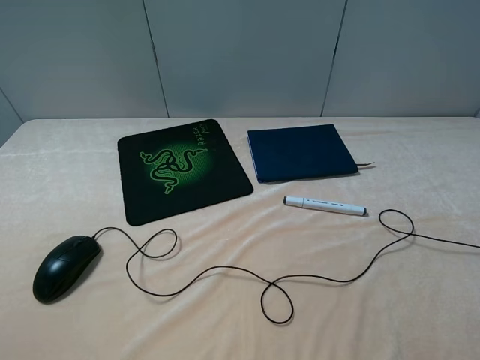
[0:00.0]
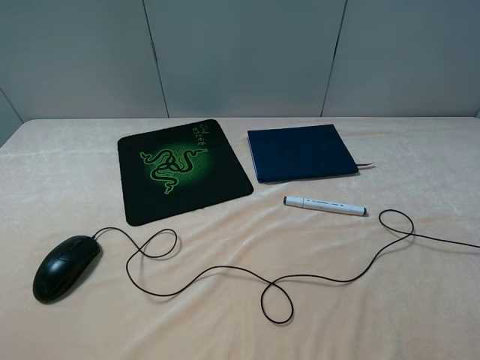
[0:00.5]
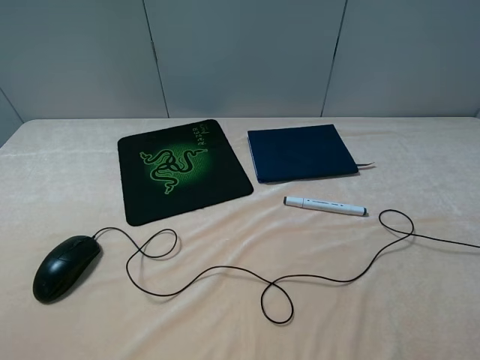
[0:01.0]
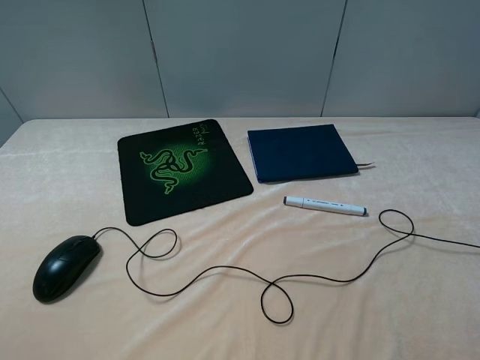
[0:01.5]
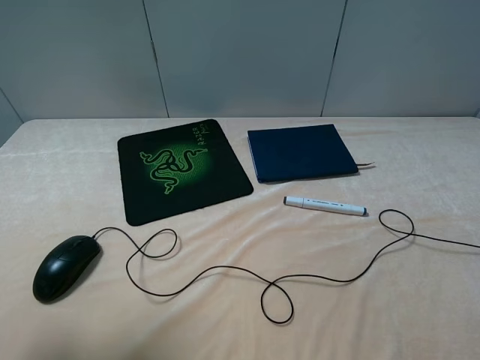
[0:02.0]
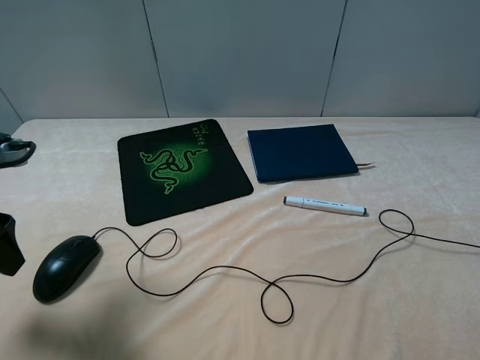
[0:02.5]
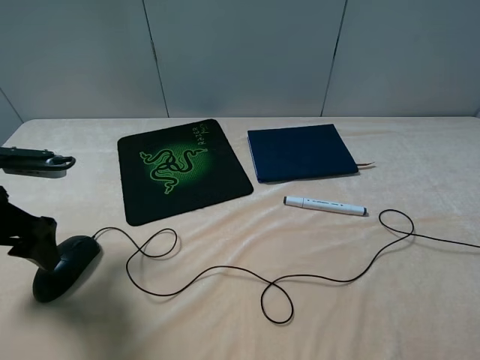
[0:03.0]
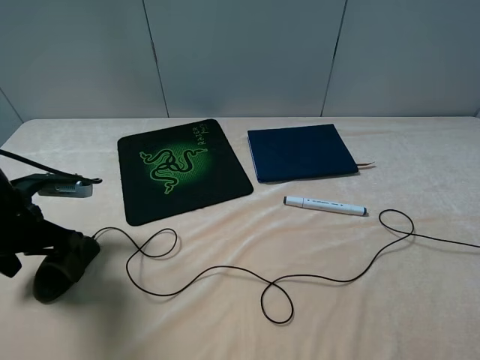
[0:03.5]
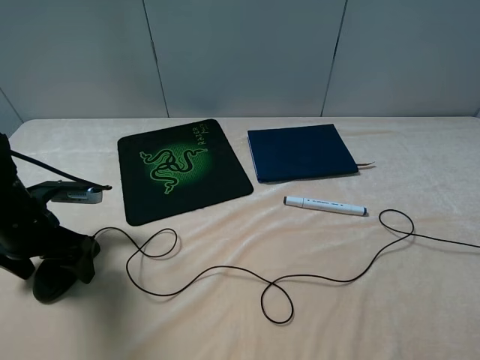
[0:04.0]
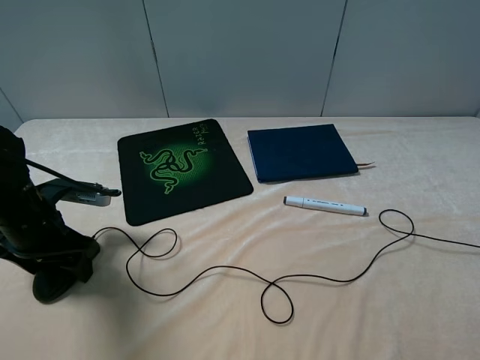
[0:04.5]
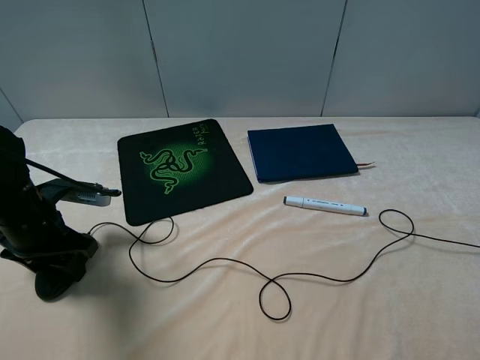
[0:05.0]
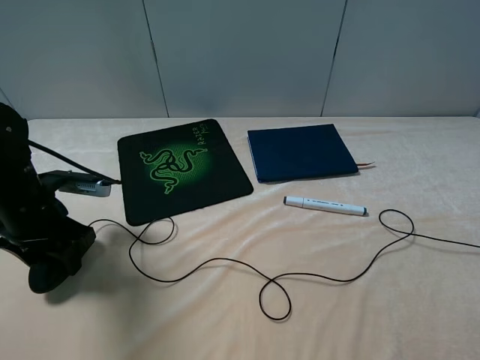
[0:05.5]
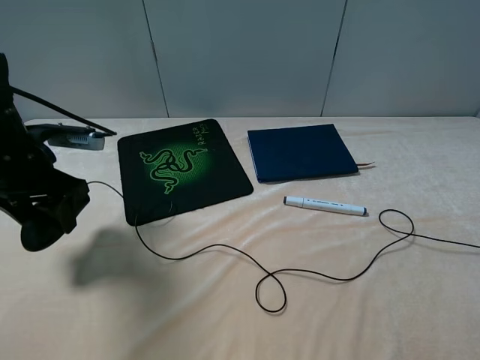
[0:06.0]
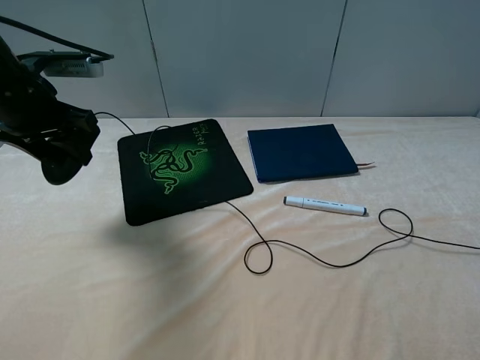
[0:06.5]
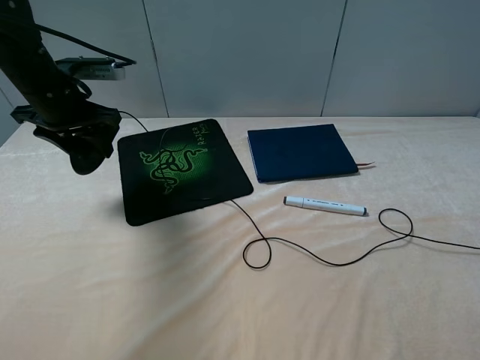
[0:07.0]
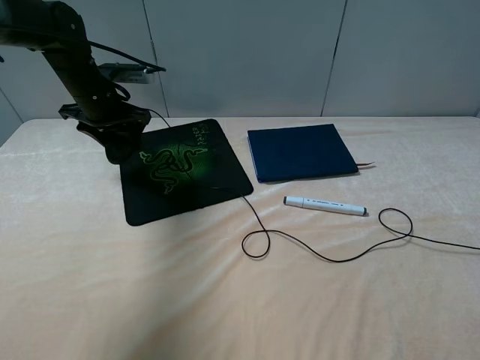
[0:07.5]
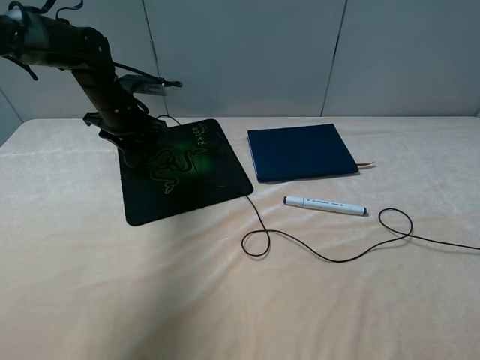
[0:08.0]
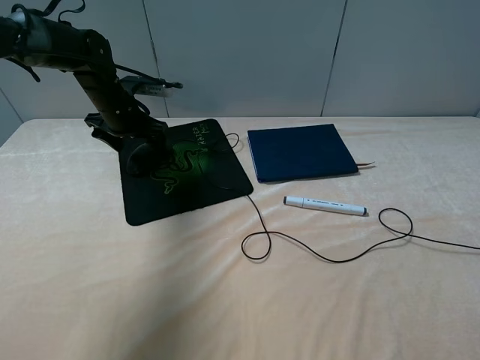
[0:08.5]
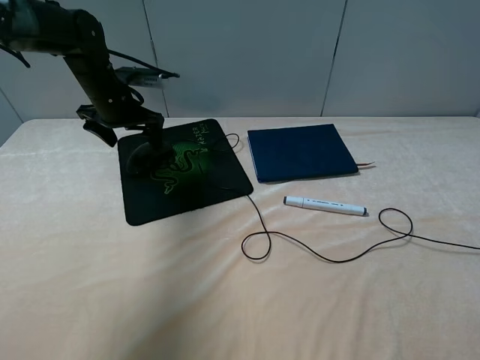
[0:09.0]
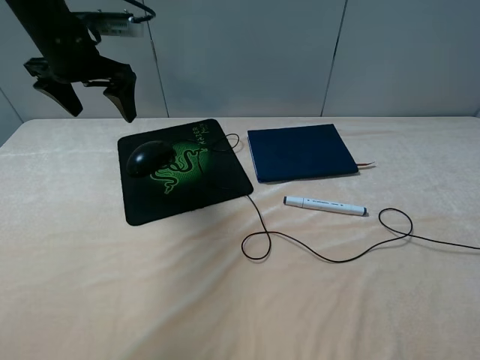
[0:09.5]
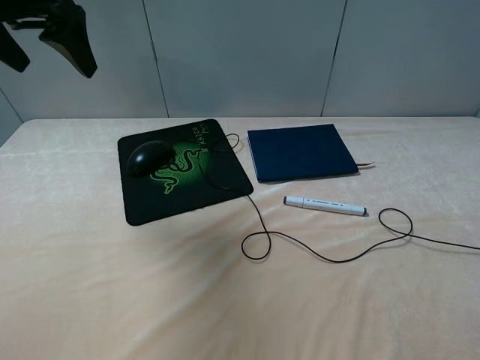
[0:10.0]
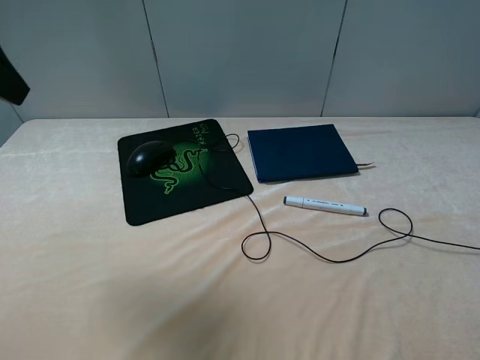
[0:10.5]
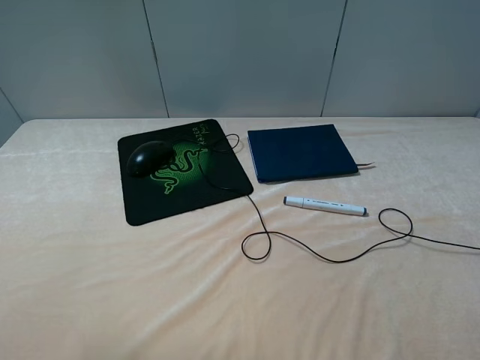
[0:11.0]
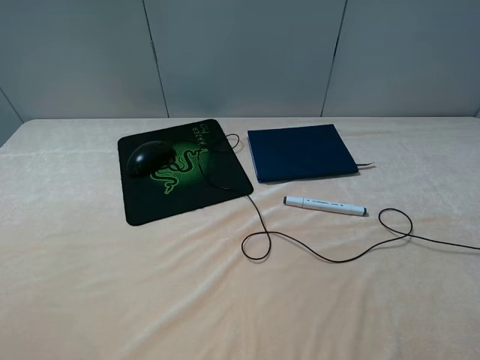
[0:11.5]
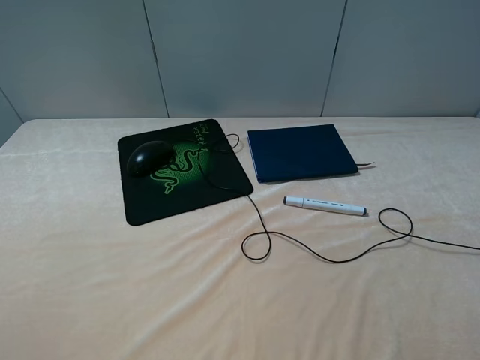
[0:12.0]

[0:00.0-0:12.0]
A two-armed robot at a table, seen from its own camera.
Step, 0:00.0 to 0:04.5: Grasp the mouse with the left gripper.
Step, 0:05.0 to 0:08.5: Place the mouse on the mouse pad with the left gripper.
0:00.0 to 0:02.0: The left gripper shifts roughly 15 cm forward.
0:02.0 to 0:04.0: The left gripper travels downward and forward by about 25 cm.
0:04.0 to 0:06.0: The left gripper travels upward by approximately 10 cm, and closes up.
0:06.0 to 0:08.0: The left gripper moves forward, approximately 20 cm.
0:08.0 to 0:10.0: The left gripper heads upward and backward, covering approximately 25 cm, and opens up.
0:10.0 to 0:12.0: The left gripper is displaced backward by approximately 30 cm.

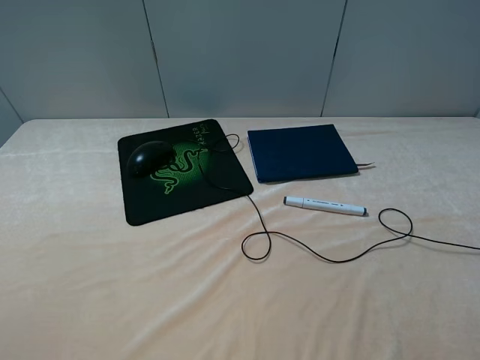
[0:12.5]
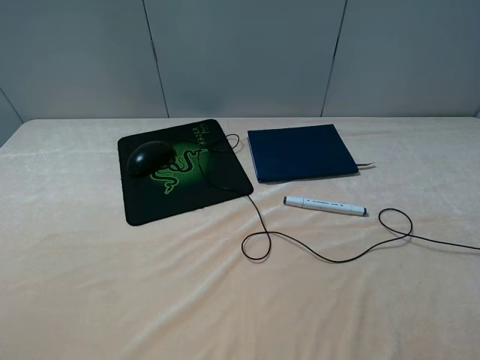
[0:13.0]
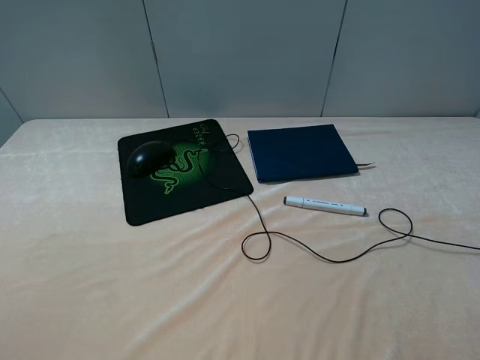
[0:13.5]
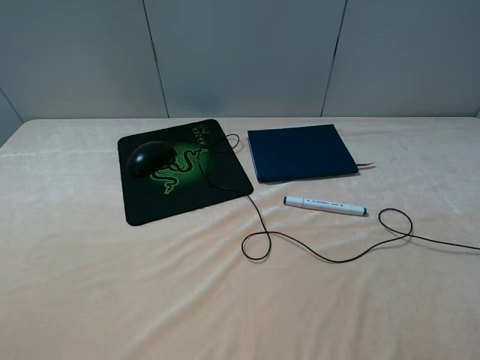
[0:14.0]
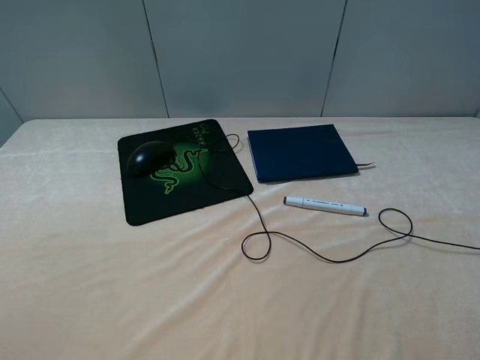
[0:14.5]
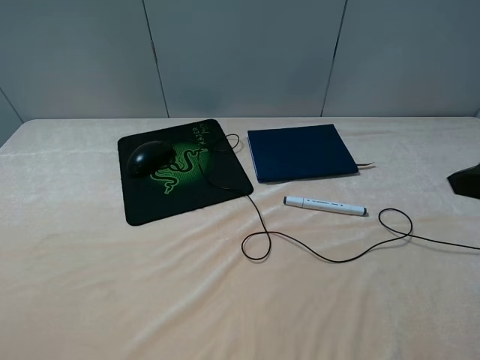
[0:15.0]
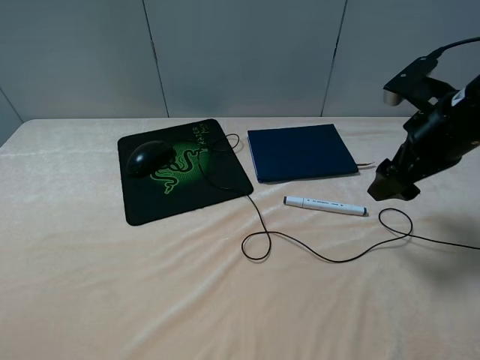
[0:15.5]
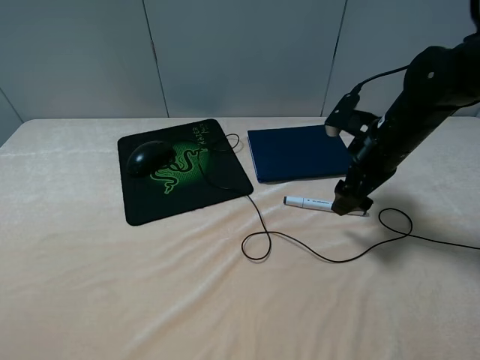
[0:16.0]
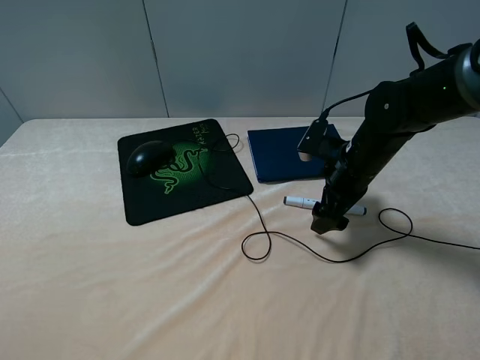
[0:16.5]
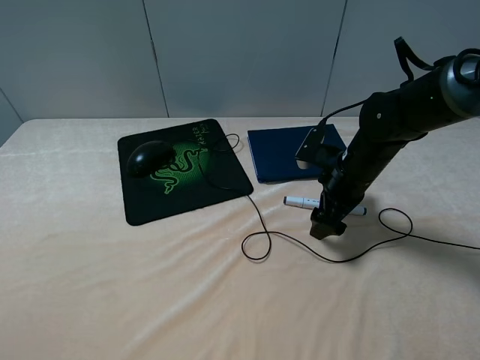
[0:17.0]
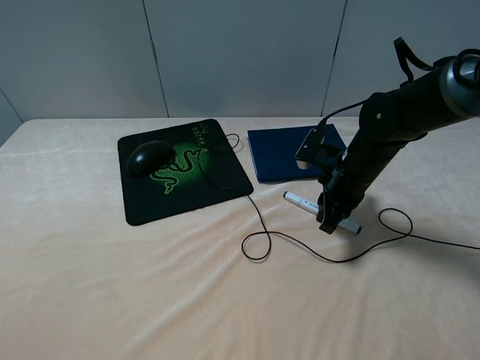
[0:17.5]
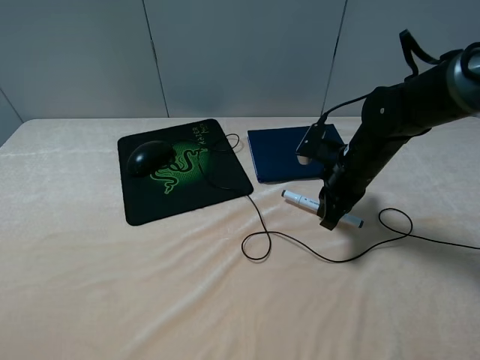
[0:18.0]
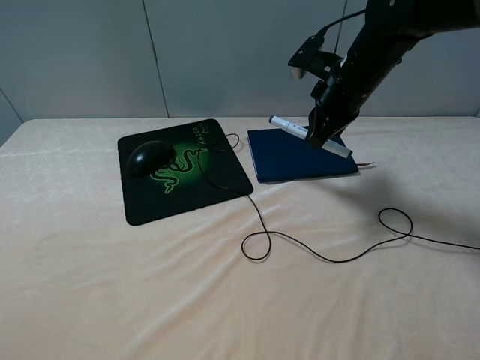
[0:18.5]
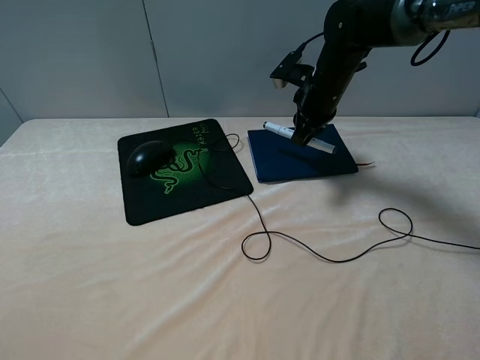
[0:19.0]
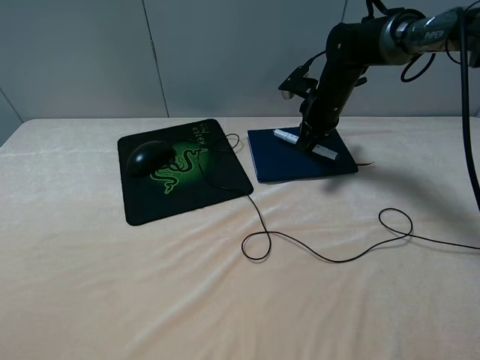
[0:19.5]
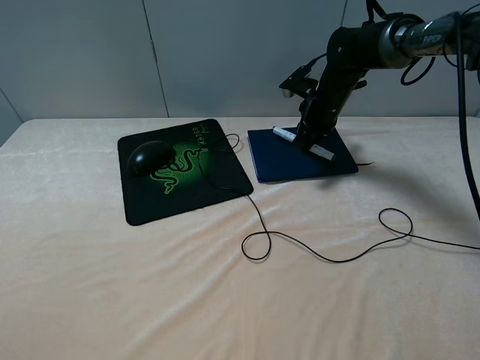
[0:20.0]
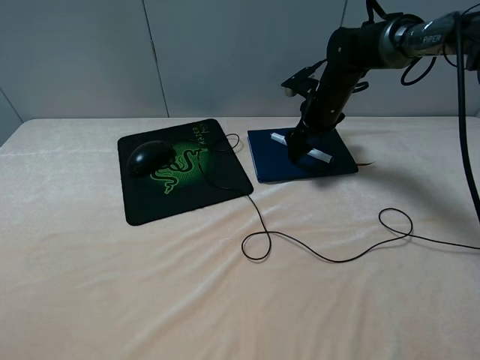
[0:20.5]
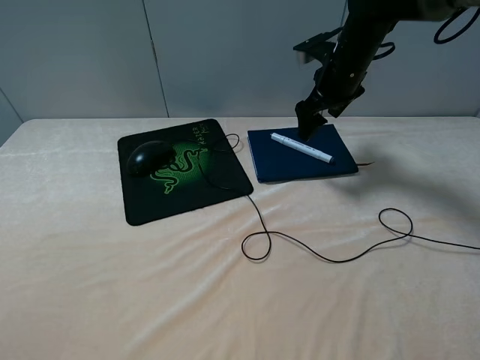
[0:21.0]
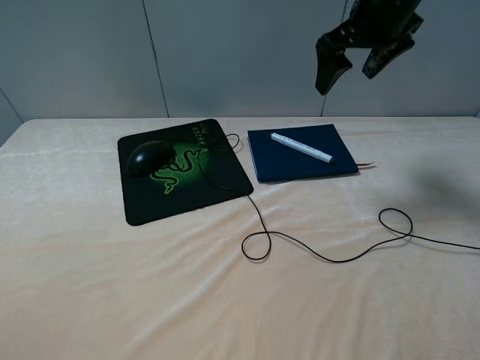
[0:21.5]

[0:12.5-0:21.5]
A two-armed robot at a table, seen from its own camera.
Step, 0:12.5 to 0:17.5: Grasp the marker with the right gripper.
Step, 0:18.0 to 0:20.5: Place the marker on the notebook with the right gripper.
0:14.5 to 0:17.0: The right gripper moves forward, downward and to the left, about 35 cm.
0:17.0 to 0:19.5: The right gripper goes roughly 15 cm forward, and closes up.
0:19.5 to 0:21.5: The right gripper shifts about 20 cm upward and backward, and opens.

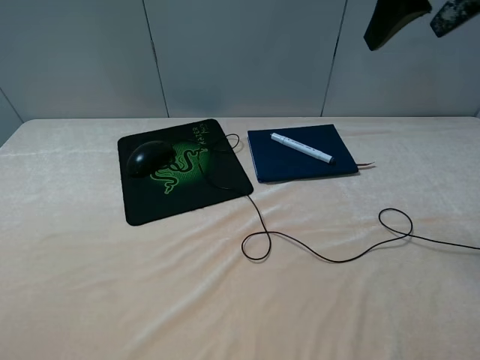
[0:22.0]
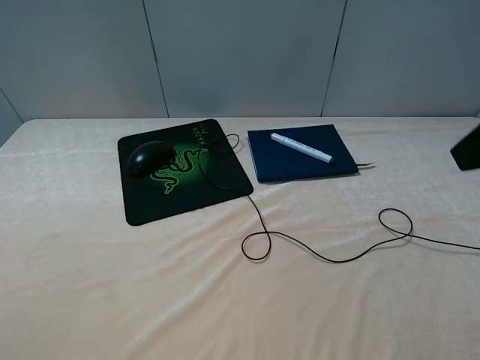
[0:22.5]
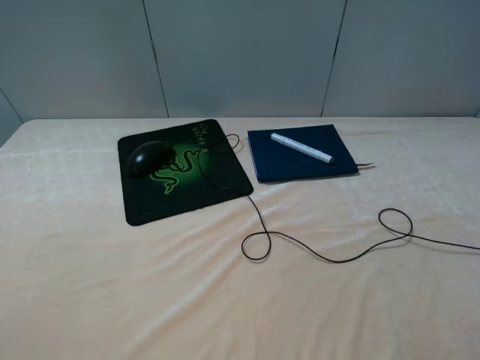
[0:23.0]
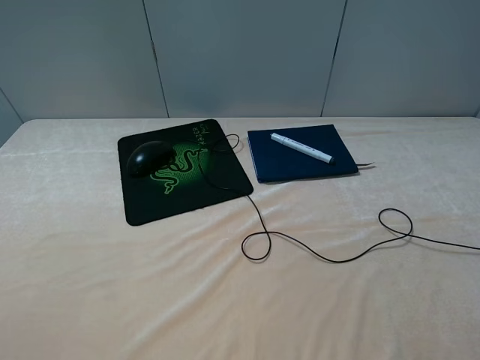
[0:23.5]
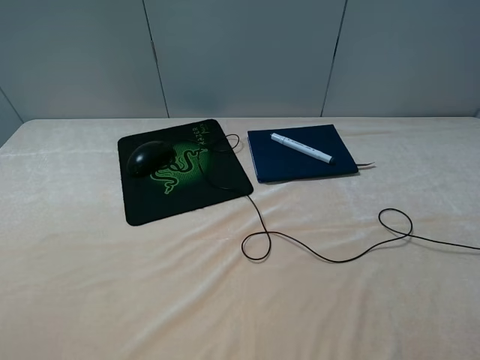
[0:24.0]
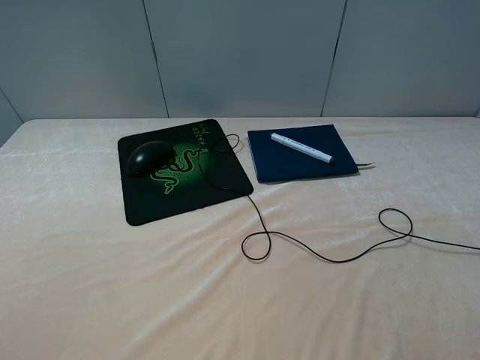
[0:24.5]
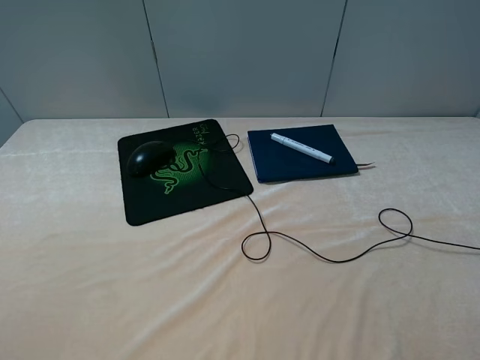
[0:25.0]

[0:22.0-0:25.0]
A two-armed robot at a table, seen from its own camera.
0:22.0 to 0:23.5: The right gripper shifts some 30 cm backward and downward.
